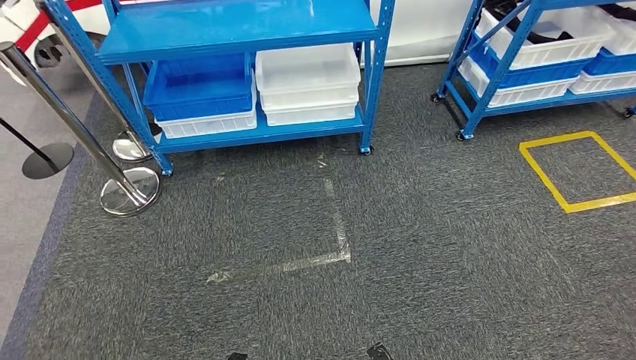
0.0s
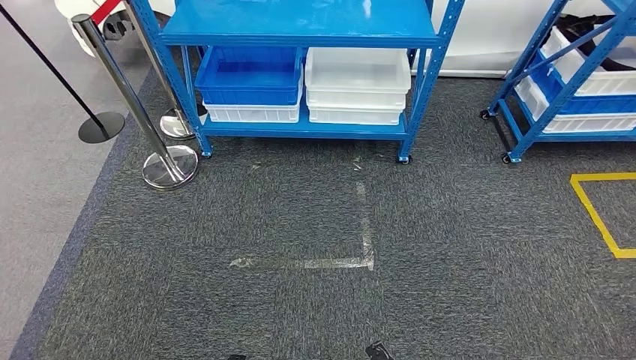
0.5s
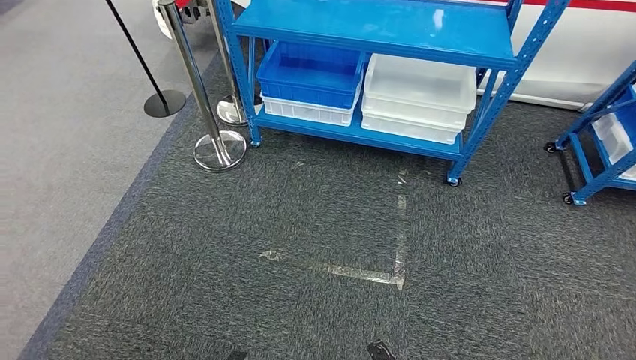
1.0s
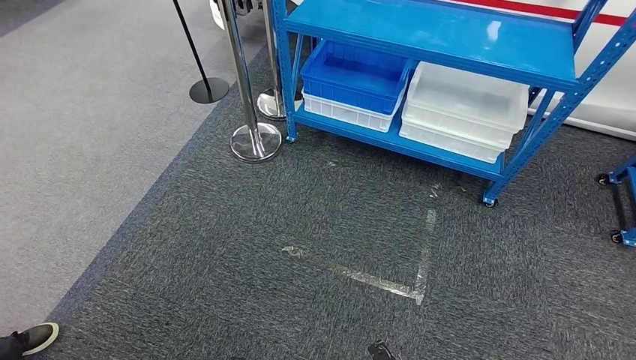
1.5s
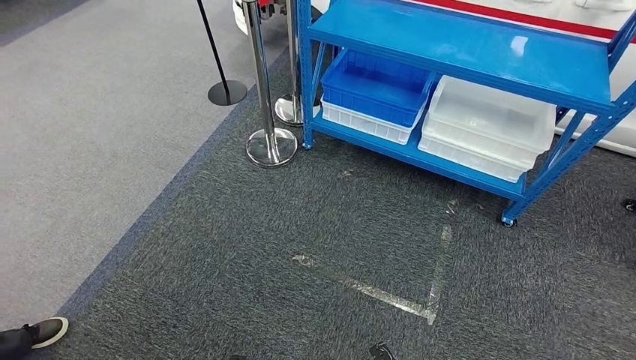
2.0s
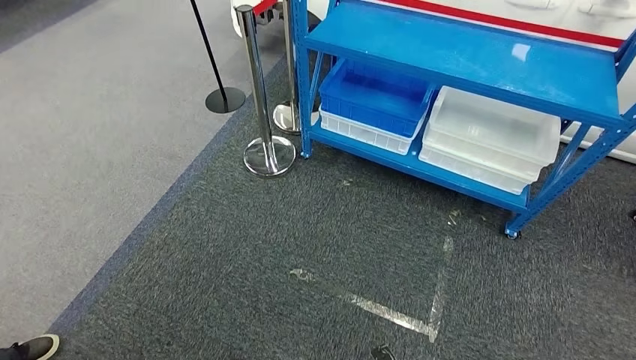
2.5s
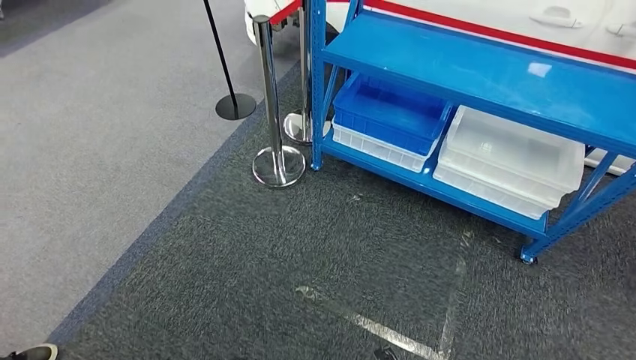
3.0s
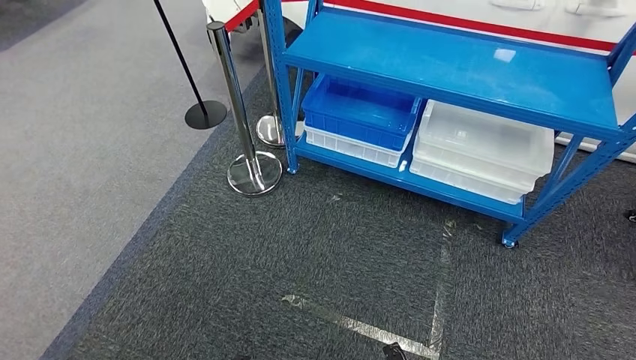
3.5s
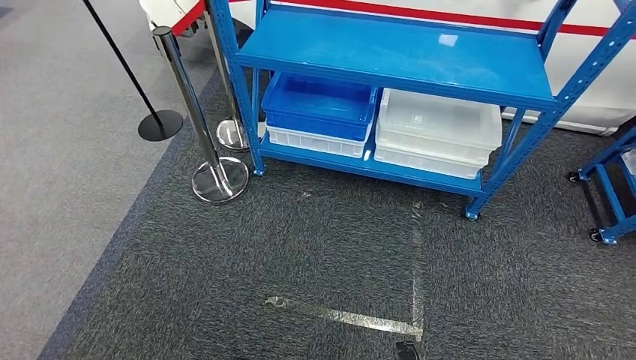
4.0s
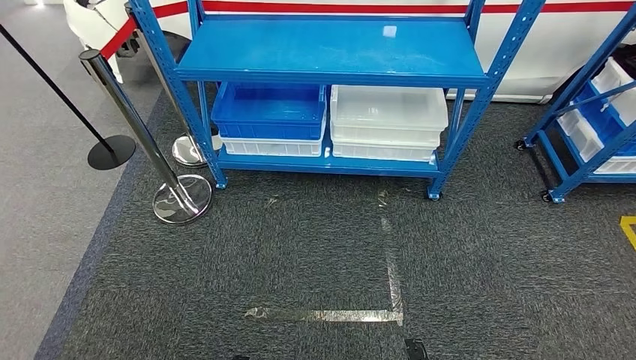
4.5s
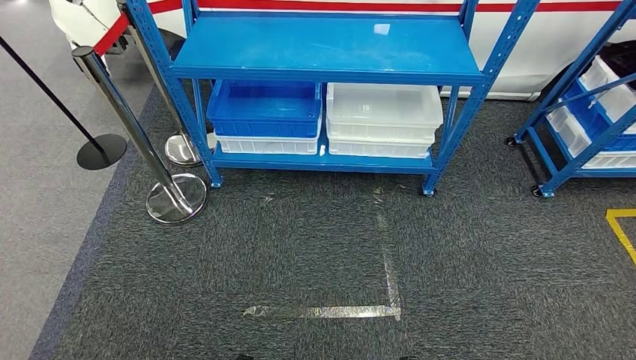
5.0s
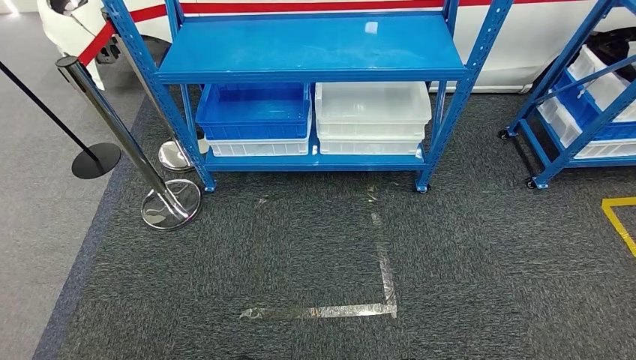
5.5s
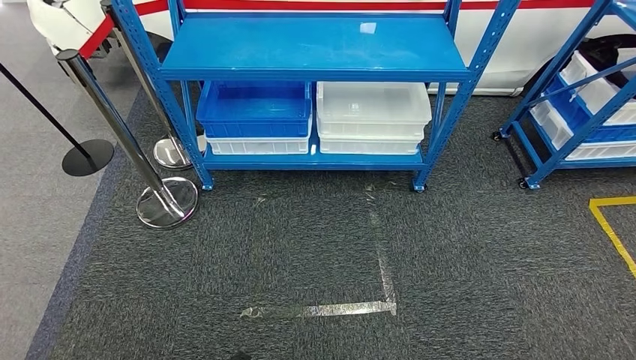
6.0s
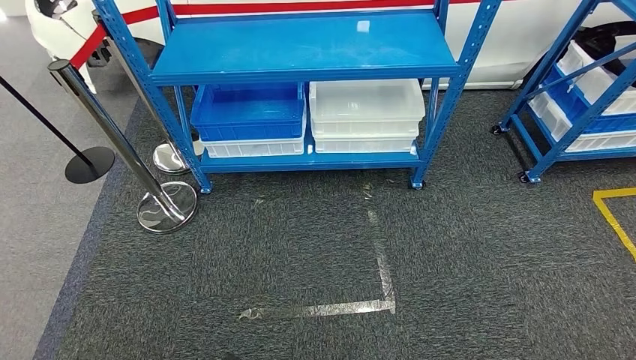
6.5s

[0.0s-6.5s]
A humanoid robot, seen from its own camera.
Step, 0.0s to 6.5s: Return to the initial position at the shelf.
